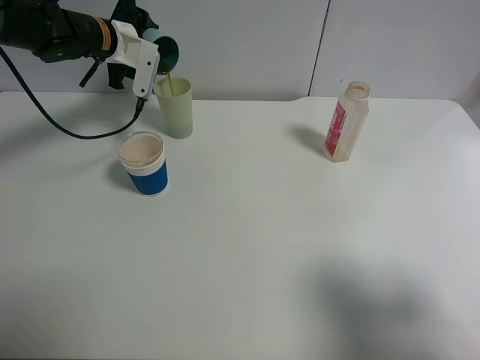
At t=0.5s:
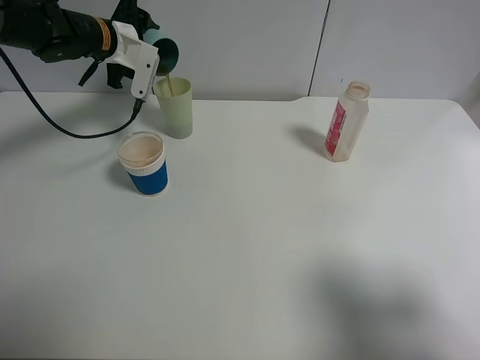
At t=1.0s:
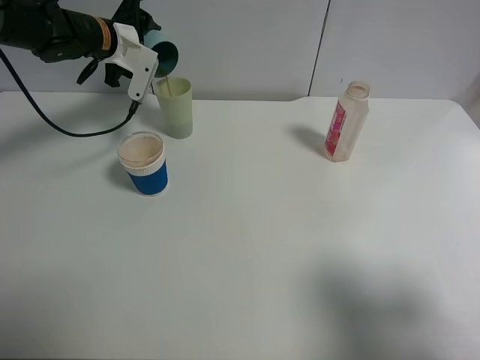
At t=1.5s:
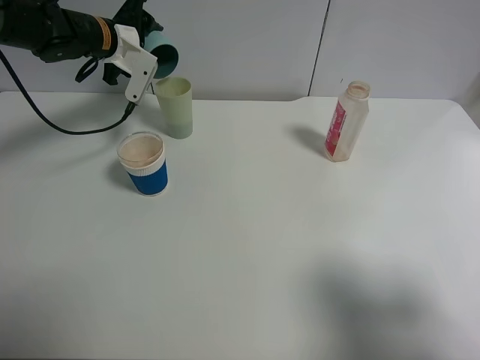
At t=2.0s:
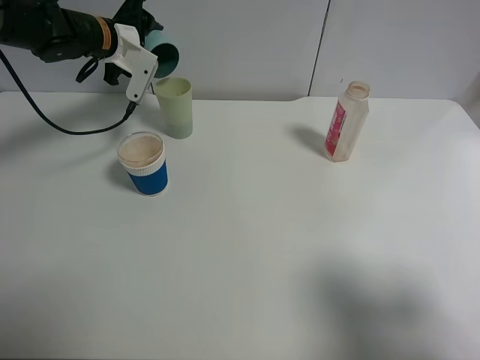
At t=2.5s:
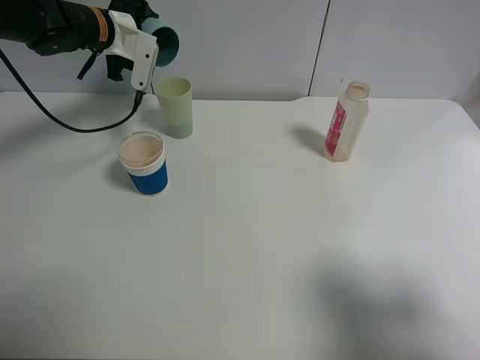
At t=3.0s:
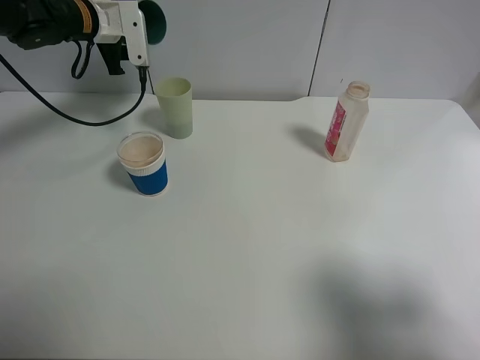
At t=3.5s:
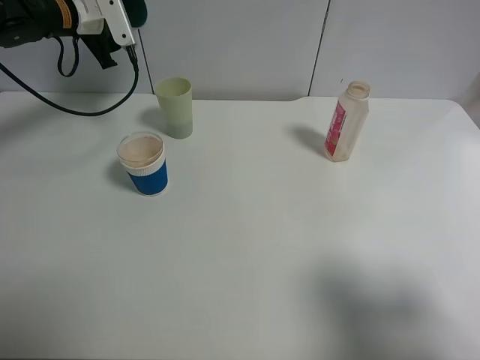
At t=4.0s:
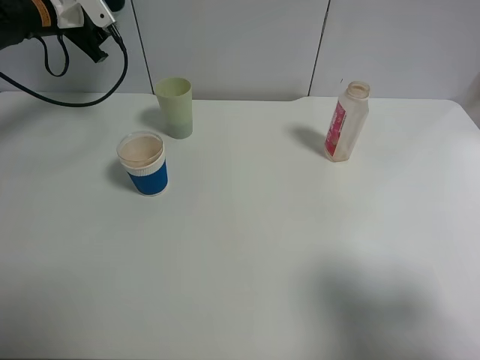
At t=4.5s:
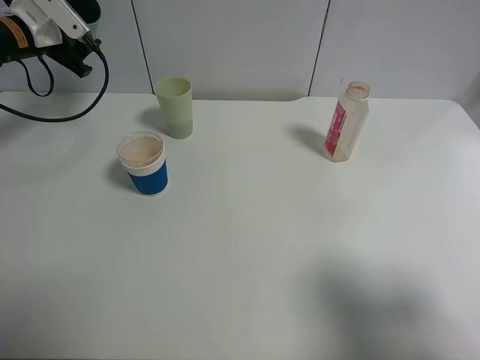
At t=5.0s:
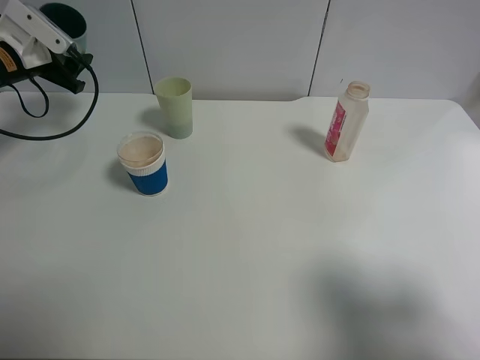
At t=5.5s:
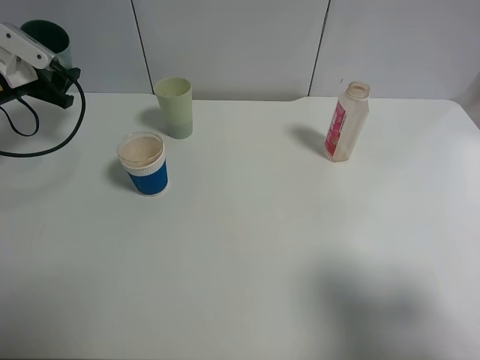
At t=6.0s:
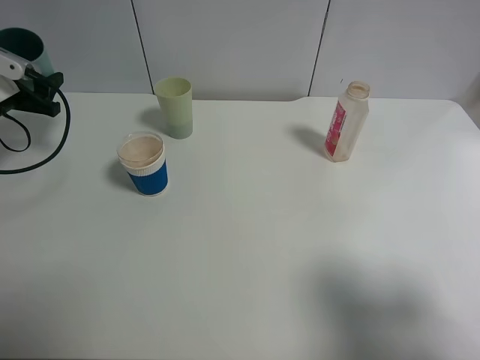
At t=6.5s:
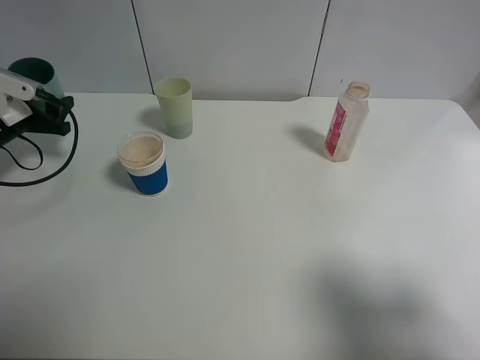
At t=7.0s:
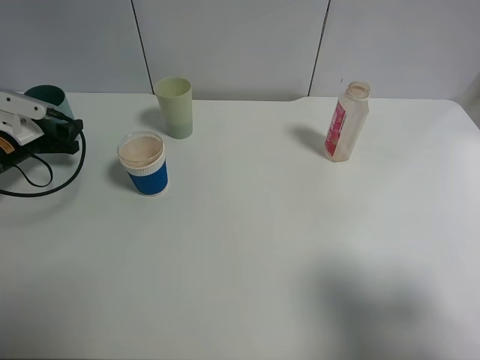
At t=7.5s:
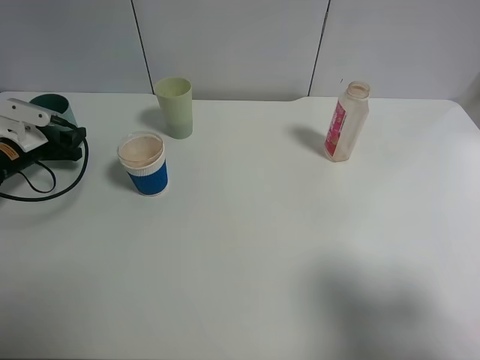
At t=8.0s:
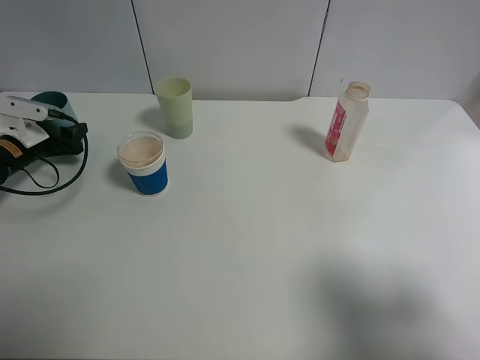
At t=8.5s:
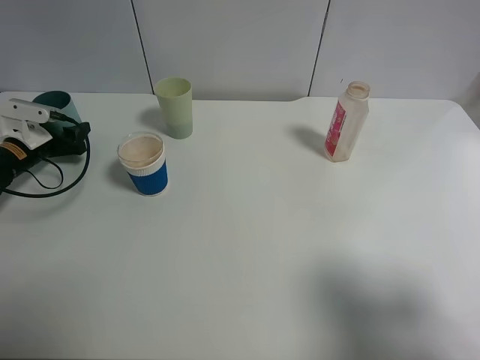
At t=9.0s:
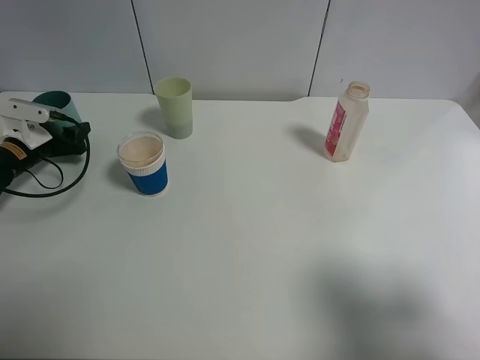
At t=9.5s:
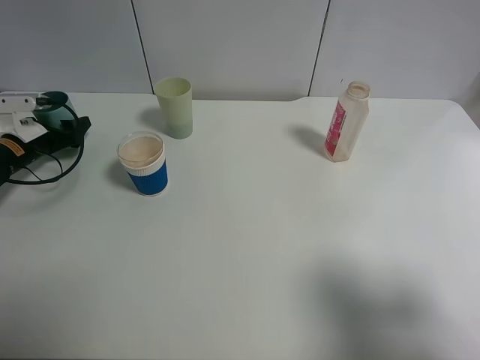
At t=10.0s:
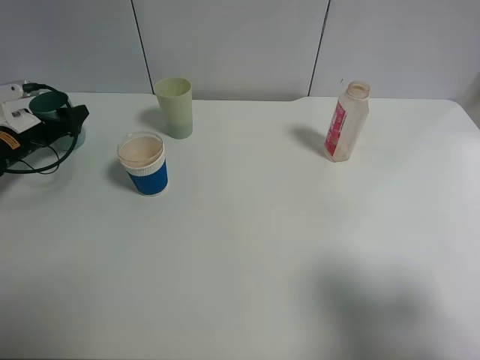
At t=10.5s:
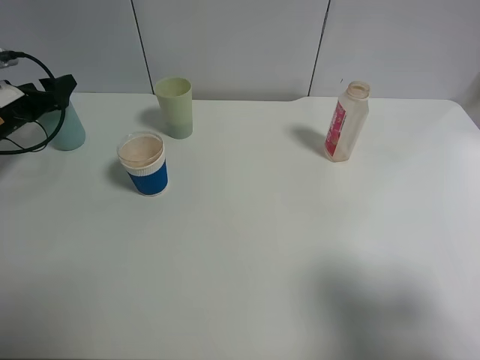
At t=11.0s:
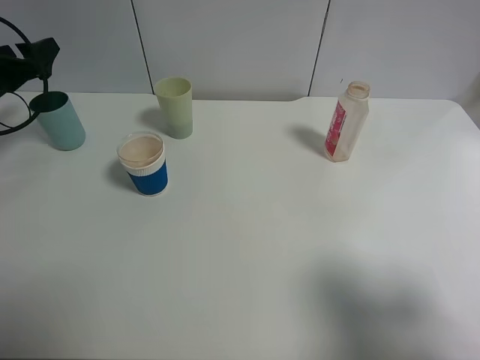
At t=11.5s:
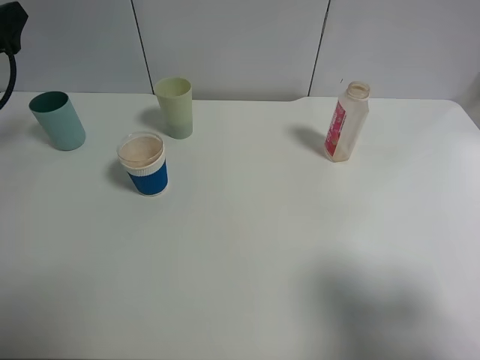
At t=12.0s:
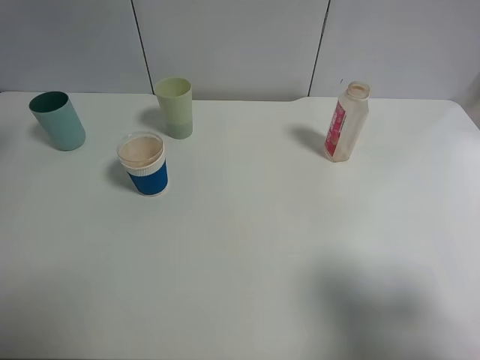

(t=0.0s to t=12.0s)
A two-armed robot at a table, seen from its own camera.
Task of the whole recording: use a clamp to hold the bottle of the drink, pour the beverage into a random cup, then clamp the cup containing the drink and pour the drink into another random cup.
Step, t=0.0s - t=2.5s: Pour the drink into the green plastic cup with left gripper.
Step, t=3.0s - t=9.5s: Place the blue plastic cup on the table with left gripper.
t=0.0s - t=2.0s: The grippers make only small movements.
t=2.0s - t=4.0s: The left gripper shifts approximately 10 cm to the left.
t=4.0s - t=6.0s: The left gripper heads backward, to the left and downward, covering approximately 15 cm.
t=6.0s - t=8.0s: The left gripper travels downward by some 10 cm.
t=8.0s - t=10.0s: The left gripper opens up.
t=10.0s - t=12.0s: The left gripper heads upward and backward, covering approximately 25 cm.

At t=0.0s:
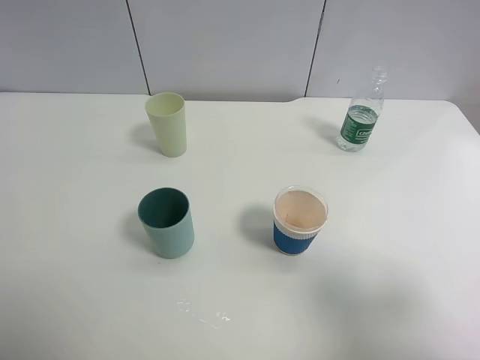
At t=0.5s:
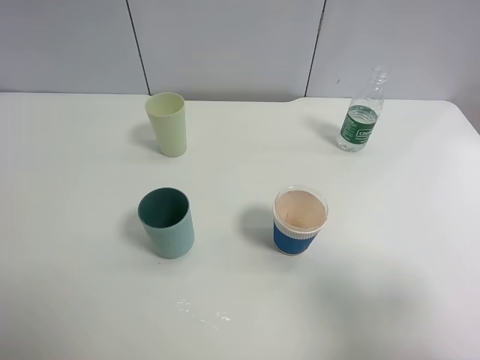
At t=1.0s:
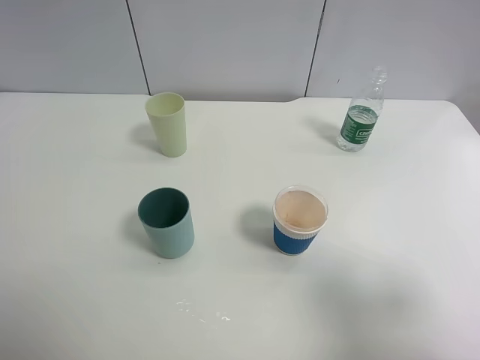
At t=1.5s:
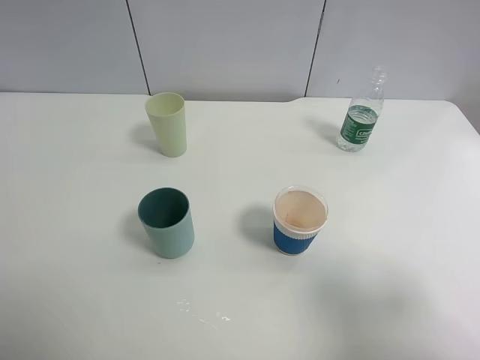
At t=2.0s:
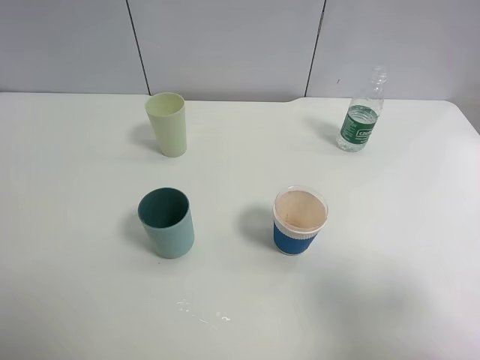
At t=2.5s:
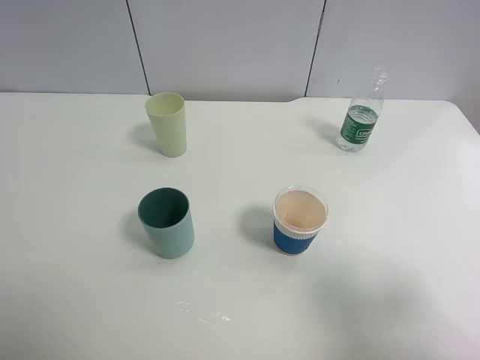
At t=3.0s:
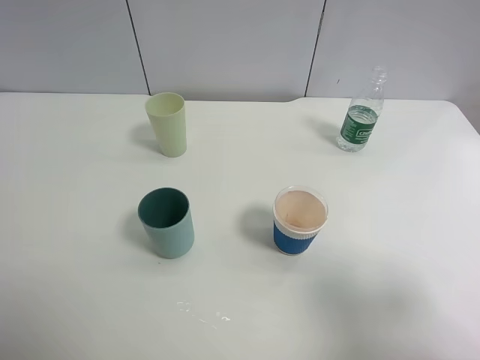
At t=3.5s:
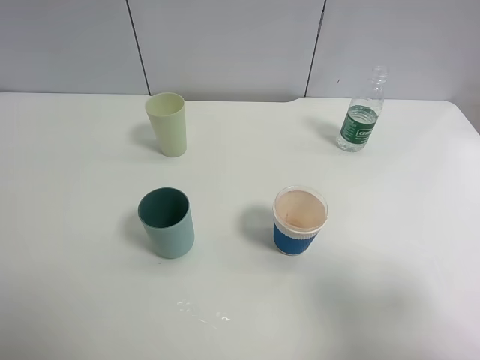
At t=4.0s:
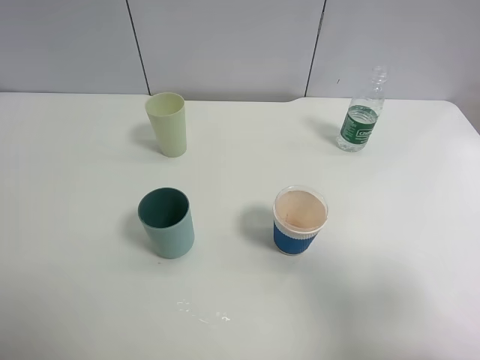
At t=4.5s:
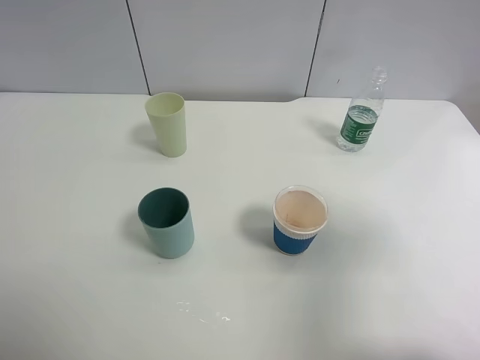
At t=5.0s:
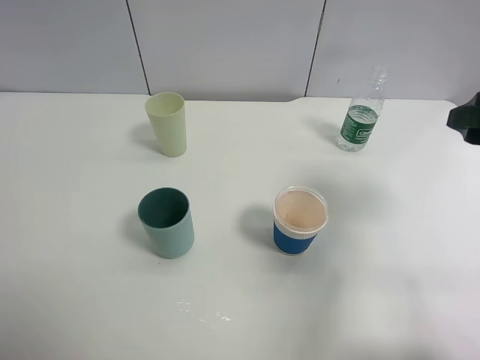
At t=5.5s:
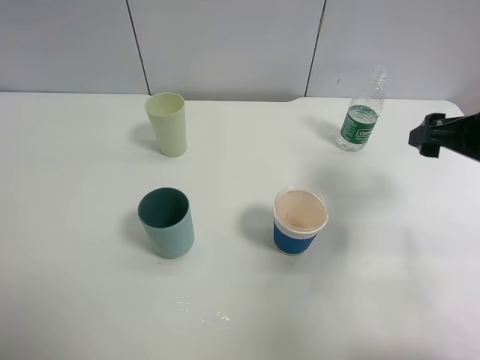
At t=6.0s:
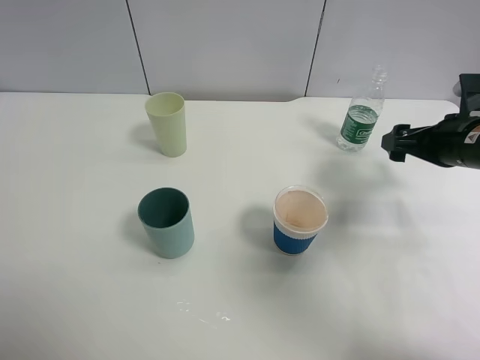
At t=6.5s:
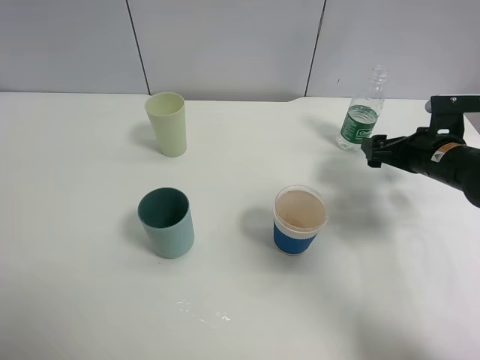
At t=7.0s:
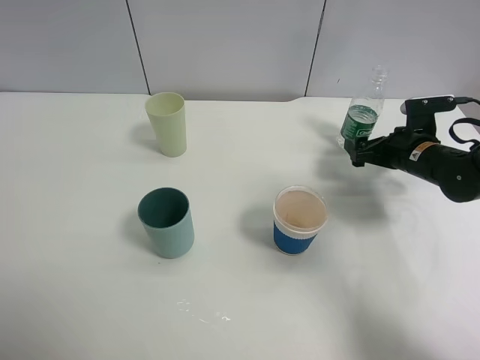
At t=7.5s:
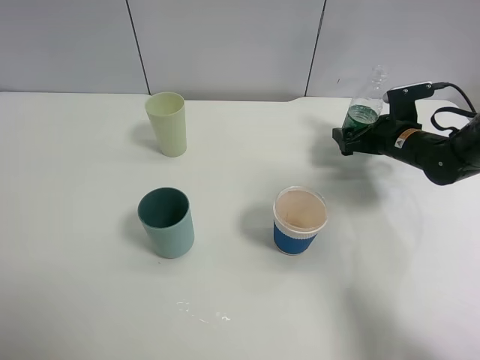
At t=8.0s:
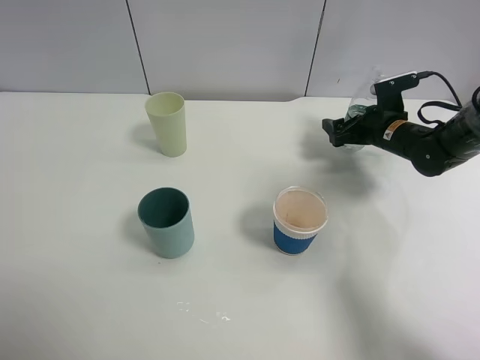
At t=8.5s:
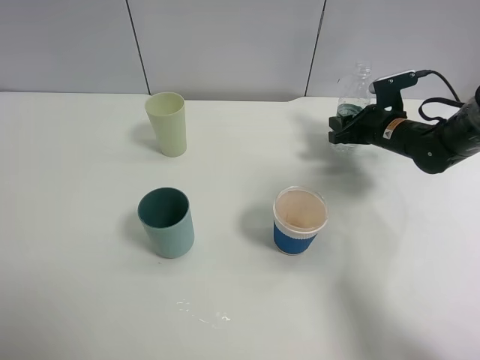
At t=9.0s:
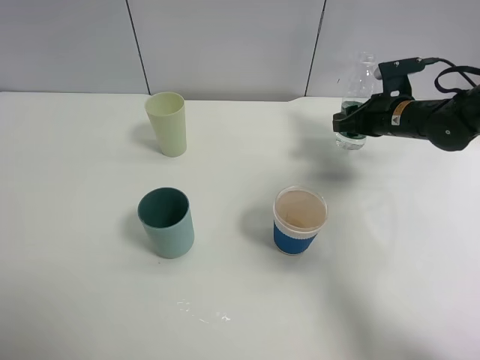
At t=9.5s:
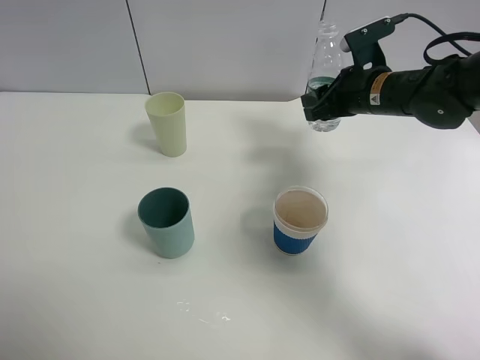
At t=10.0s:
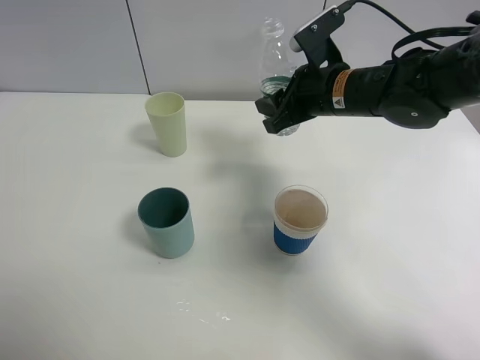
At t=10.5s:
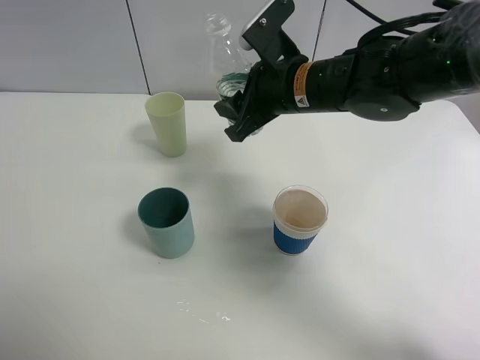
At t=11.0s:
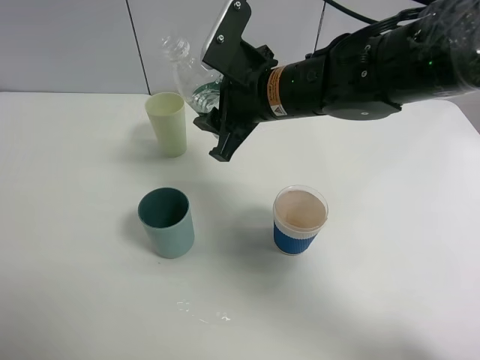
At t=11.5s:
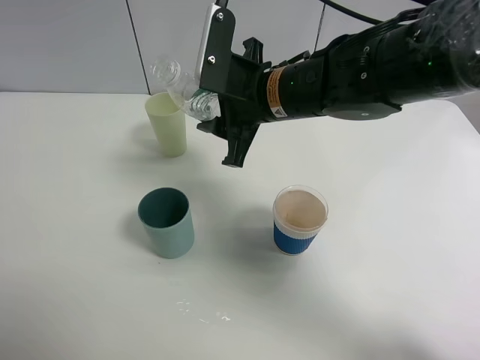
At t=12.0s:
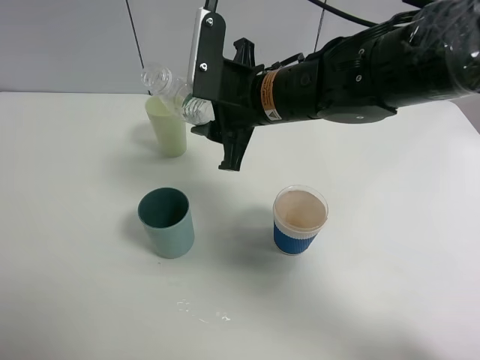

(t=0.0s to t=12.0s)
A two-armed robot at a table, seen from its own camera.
Task of the whole recording: use a clamp to hold the bottle of the drink, pour the beverage into a random cup, then clamp the cup containing the drink and pour the drink into another random cup.
Step, t=0.0s - t=9.0s: Pick up the water bottle with right gripper.
t=0.0s - t=2.0s: Both grippers stay put.
t=4.0s - t=6.0s: The right gripper goes approximately 30 cm forward and downward.
t=6.0s - t=8.0s: The right gripper shifts some 15 cm forward and downward.
t=8.0s - t=10.0s: The right gripper is displaced to the left, upward and backward by some 20 cm, and closes up.
t=10.0s - t=12.0s: The right gripper shifts approximately 10 cm to the left.

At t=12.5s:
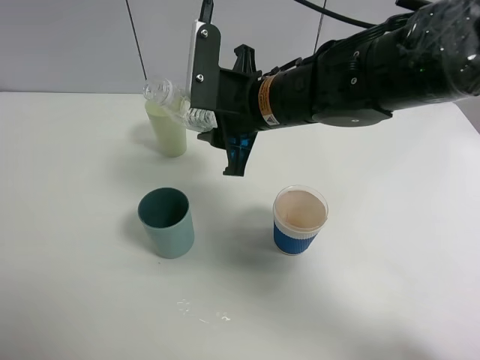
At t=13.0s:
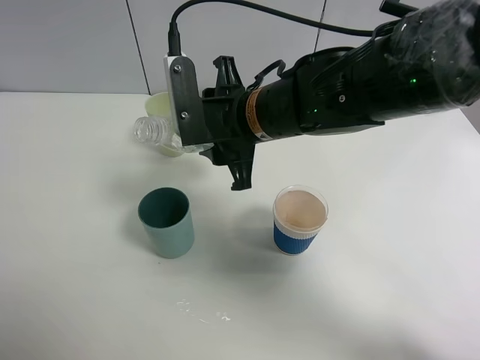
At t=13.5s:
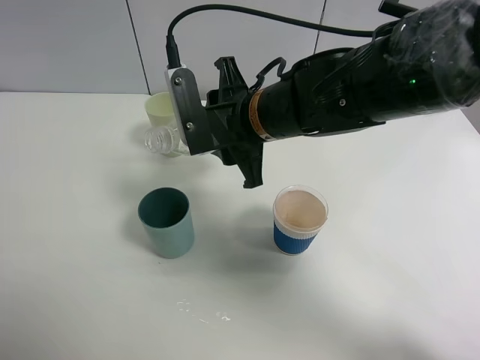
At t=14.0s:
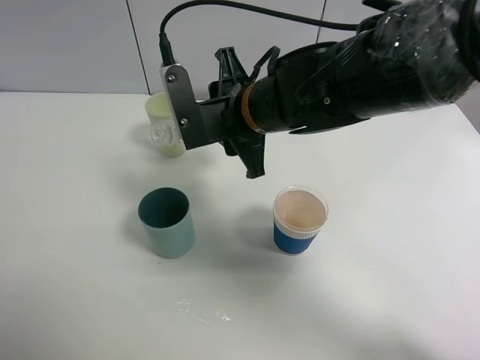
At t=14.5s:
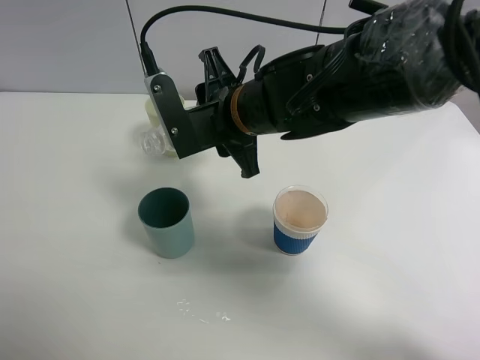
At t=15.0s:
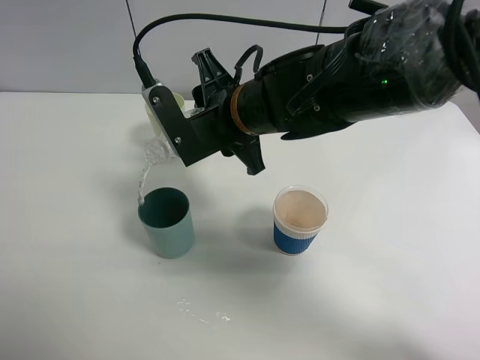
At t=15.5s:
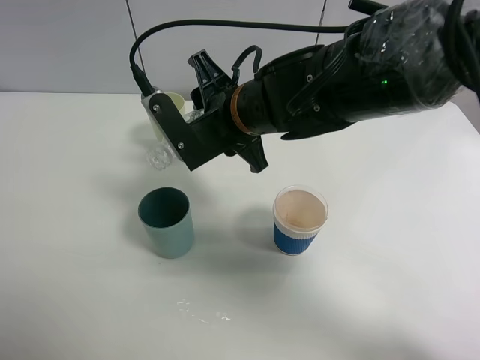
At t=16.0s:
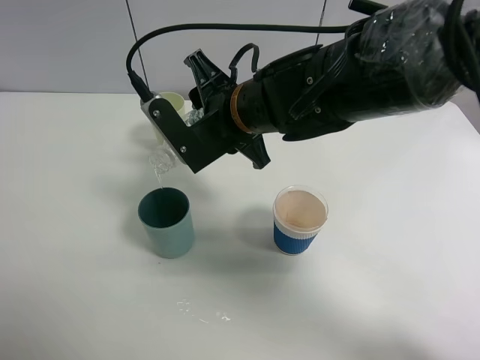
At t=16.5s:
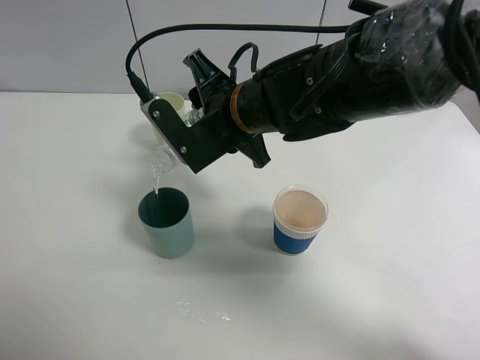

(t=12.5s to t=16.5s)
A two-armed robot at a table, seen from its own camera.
Task of the whole recording: use a clamp to hold the bottle of the drink, pour the beverage into a random cup, then clamp the cup containing the drink and pour the drink into another random cup.
t=14.5s - t=16.5s: There are only small adjustments of the grippers.
